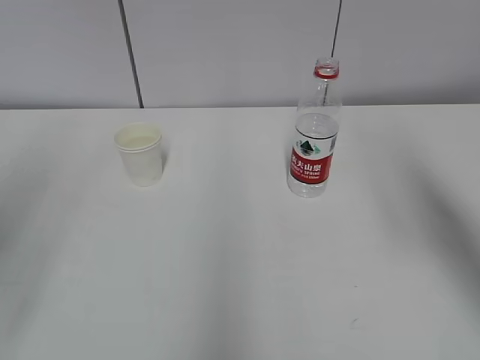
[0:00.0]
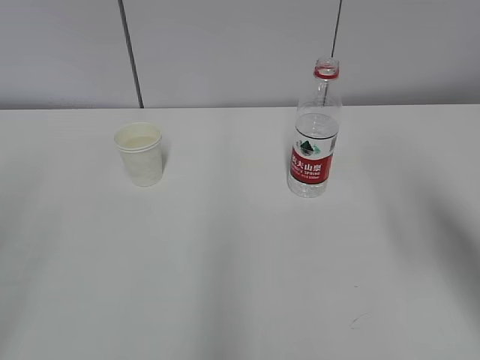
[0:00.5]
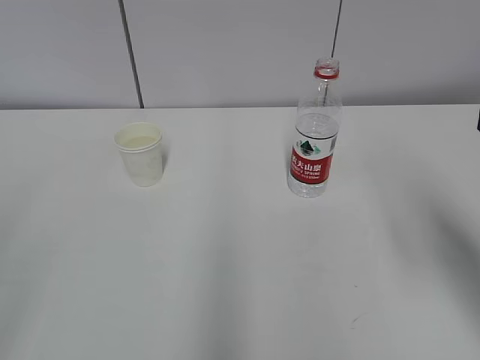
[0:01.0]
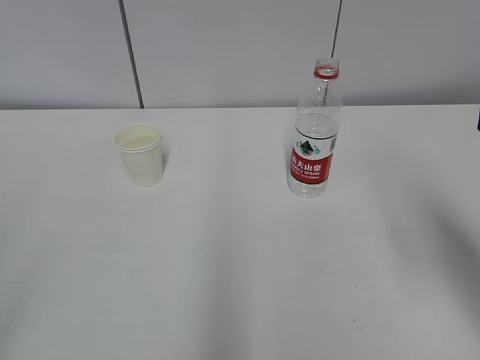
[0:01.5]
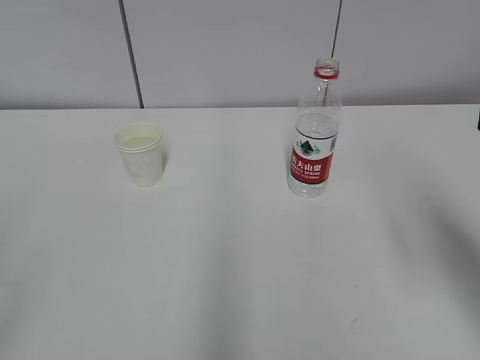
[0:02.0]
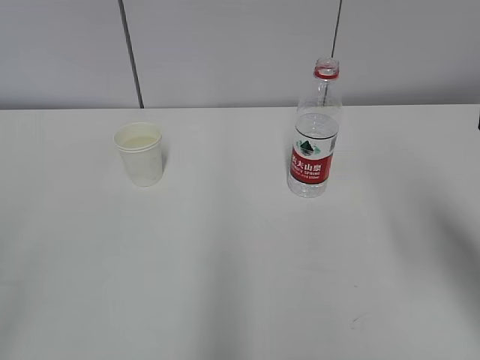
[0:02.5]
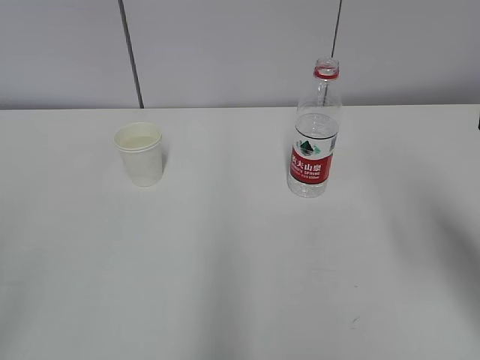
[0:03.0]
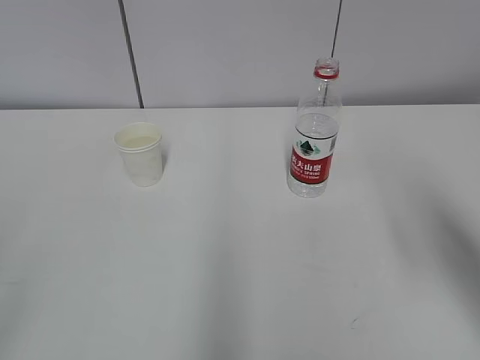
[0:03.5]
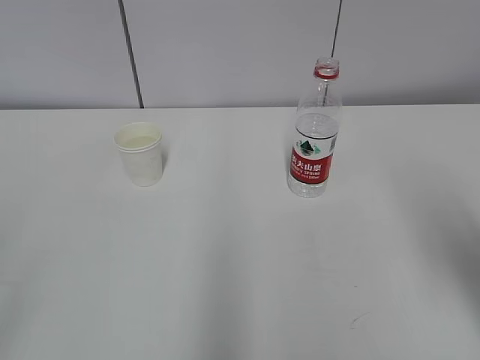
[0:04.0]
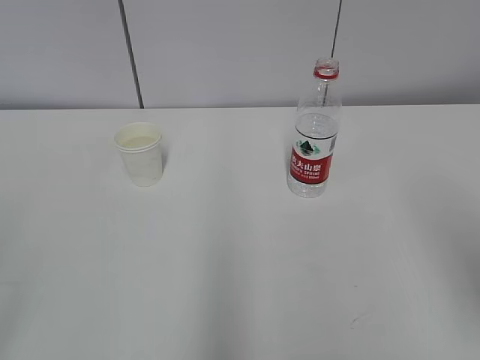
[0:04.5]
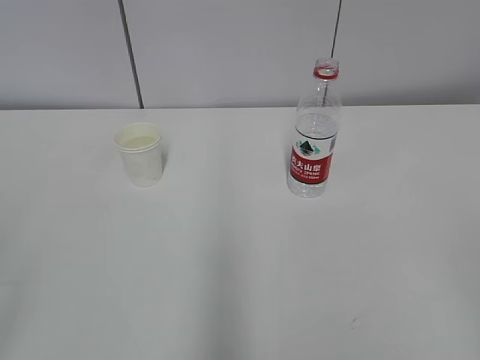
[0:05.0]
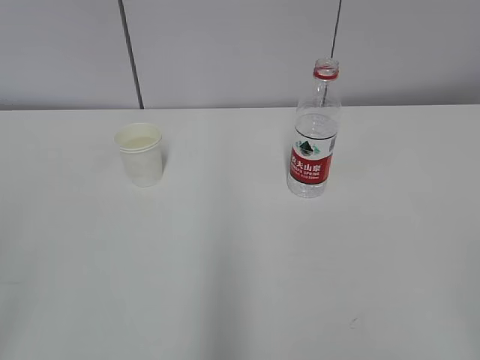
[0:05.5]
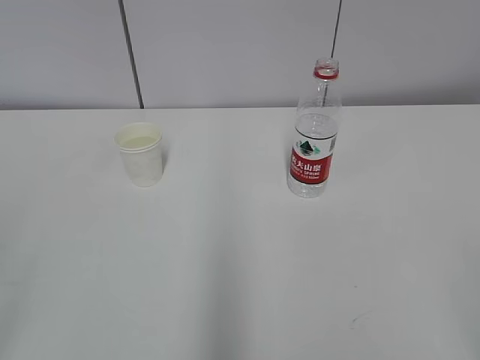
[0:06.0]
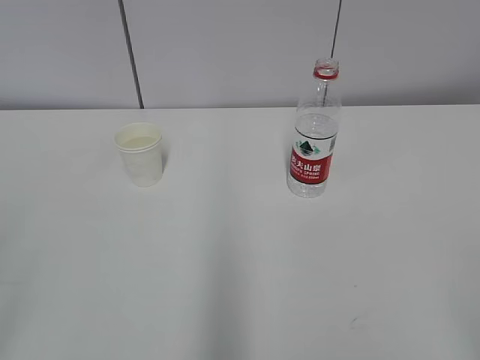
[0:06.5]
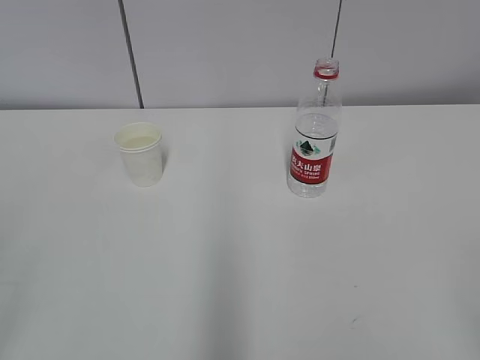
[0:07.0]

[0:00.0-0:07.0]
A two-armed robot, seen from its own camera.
0:02.0 to 0:03.5: Both grippers stay about where they are.
0:03.5 to 0:05.0: The right gripper shifts about 15 cm backward.
